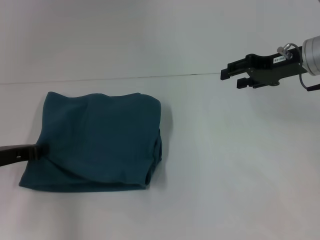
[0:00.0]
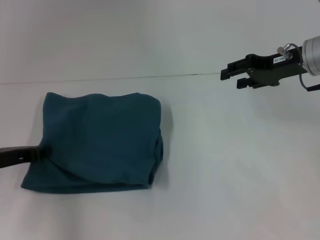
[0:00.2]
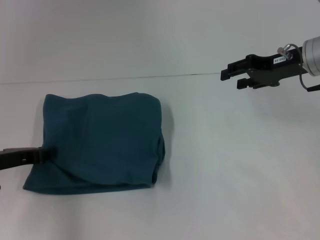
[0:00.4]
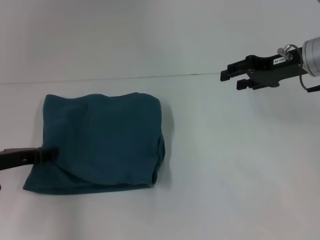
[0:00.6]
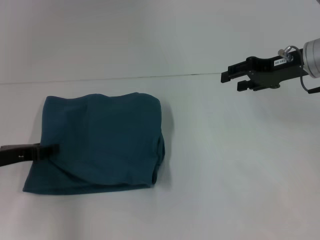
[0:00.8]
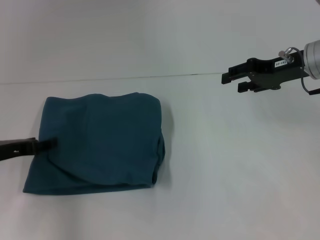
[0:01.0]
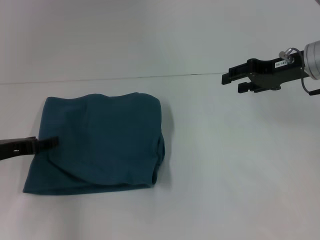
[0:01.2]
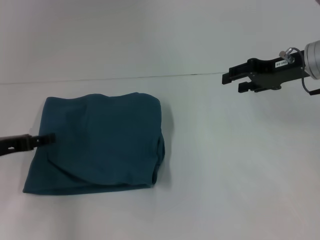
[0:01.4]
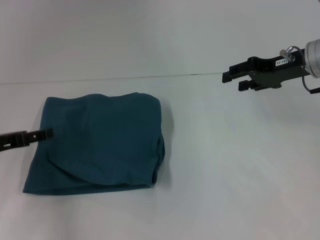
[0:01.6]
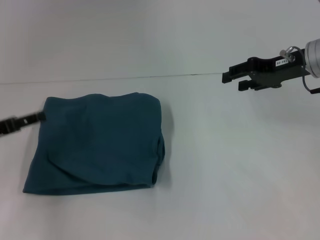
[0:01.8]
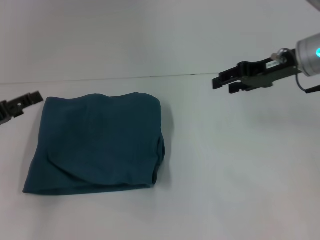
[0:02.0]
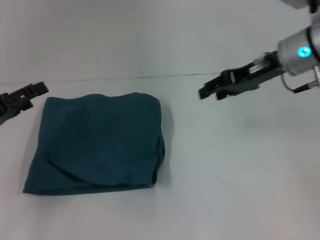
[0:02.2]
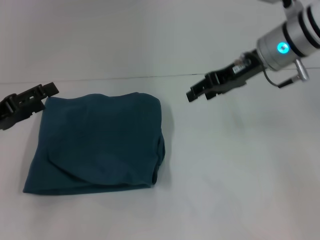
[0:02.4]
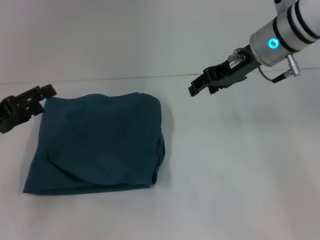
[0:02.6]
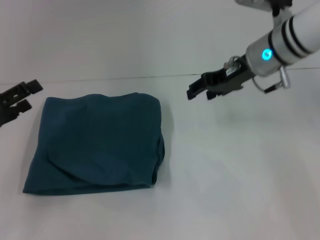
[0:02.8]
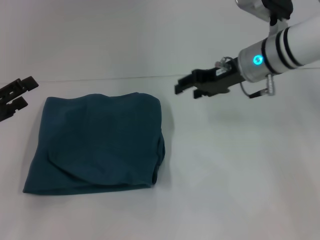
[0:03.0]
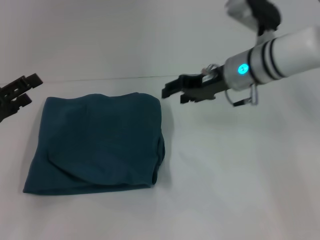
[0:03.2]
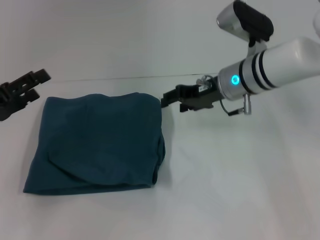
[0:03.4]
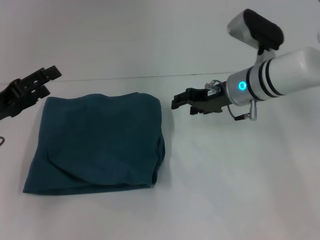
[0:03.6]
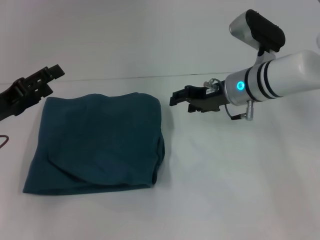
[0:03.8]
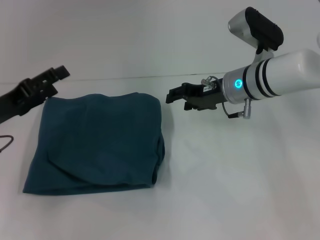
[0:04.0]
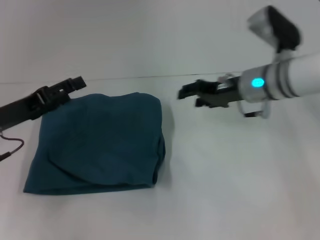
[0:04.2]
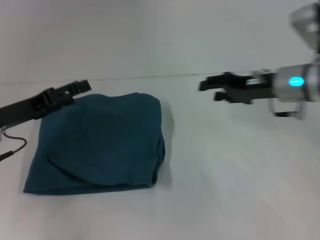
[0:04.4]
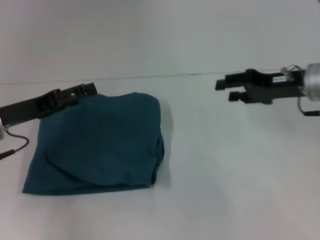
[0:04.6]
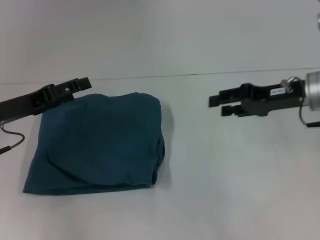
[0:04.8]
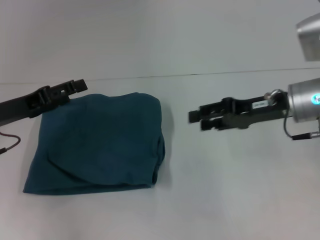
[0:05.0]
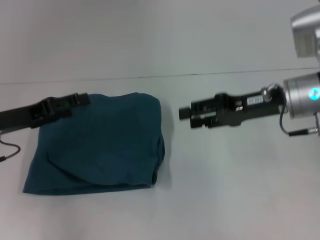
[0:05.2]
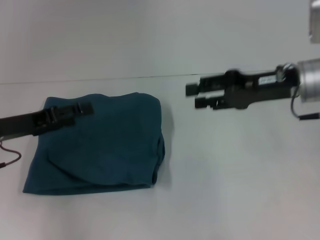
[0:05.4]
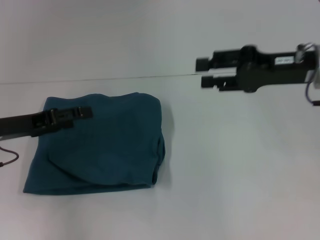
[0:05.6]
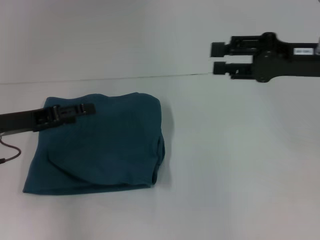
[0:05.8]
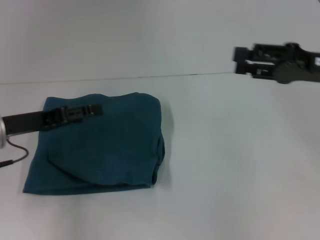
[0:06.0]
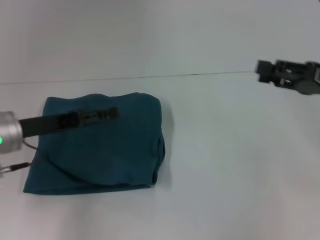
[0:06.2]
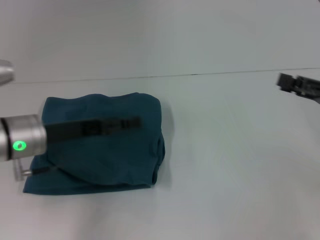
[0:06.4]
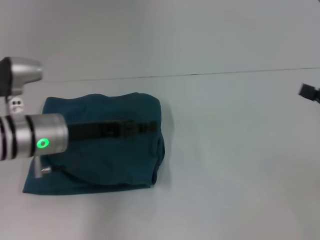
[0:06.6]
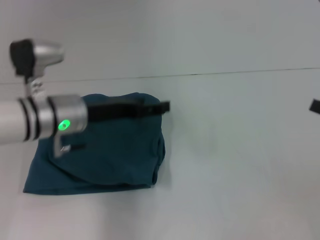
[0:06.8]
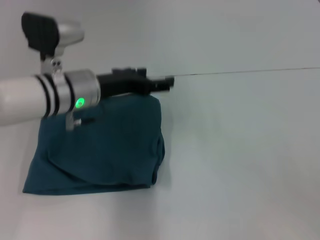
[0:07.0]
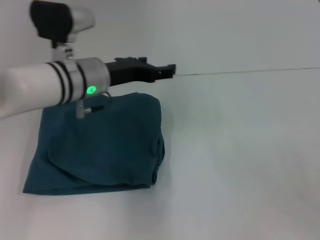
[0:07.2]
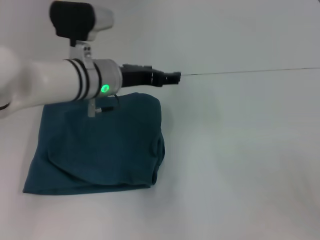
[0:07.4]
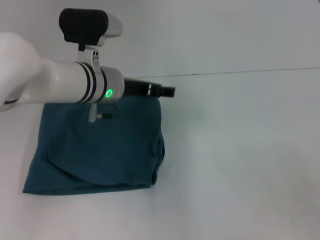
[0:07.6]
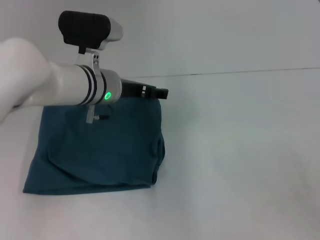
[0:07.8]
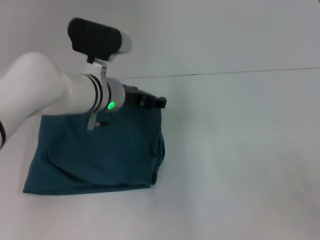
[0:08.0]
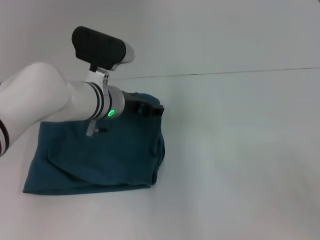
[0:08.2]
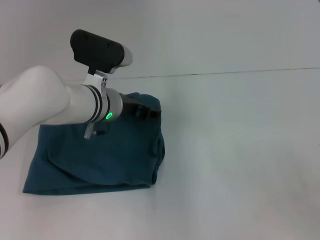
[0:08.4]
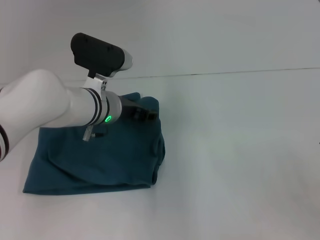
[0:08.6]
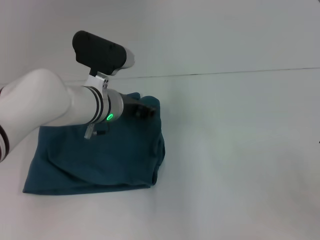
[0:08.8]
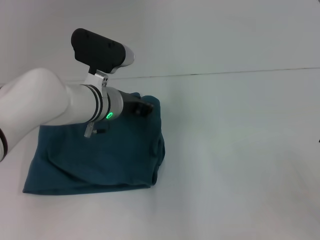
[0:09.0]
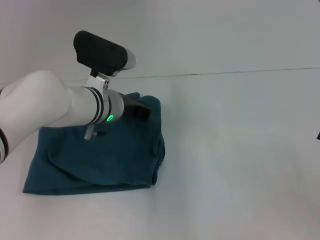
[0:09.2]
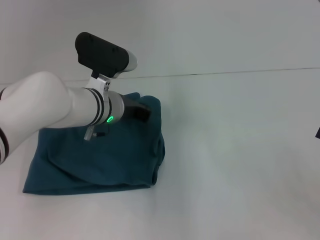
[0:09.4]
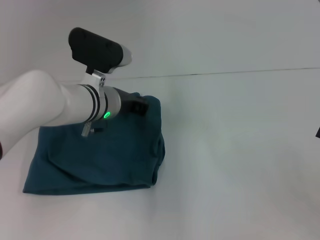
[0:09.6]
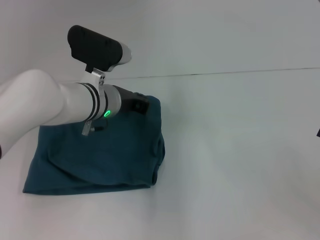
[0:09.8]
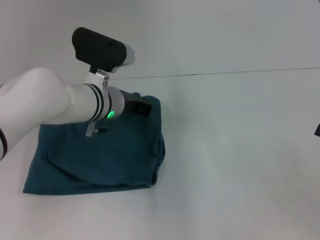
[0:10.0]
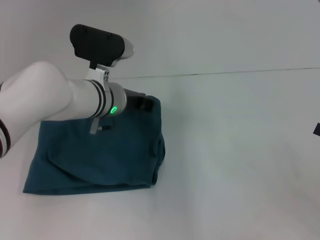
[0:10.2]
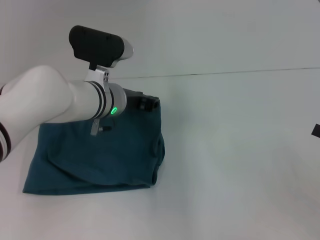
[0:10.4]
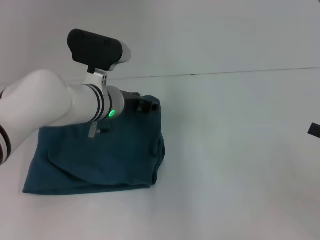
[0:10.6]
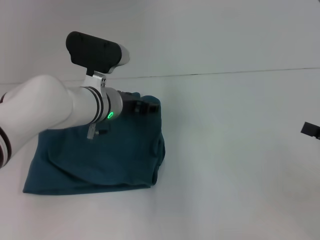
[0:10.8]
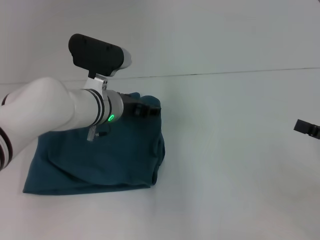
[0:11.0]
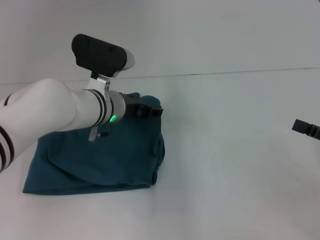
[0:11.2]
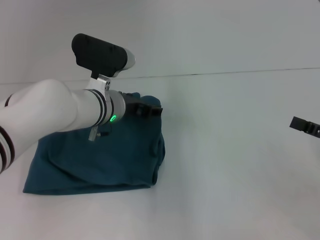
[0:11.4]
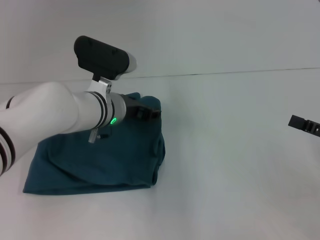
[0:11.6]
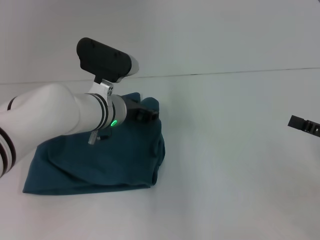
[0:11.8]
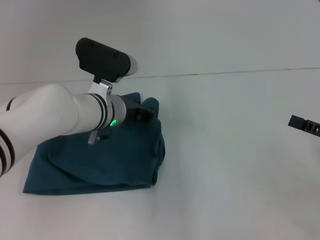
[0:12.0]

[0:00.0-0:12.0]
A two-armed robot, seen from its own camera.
0:00.0 to 0:01.6: The left gripper opens up.
0:01.6 to 0:03.0: The right gripper shifts about 10 cm to the left.
0:03.0 to 0:04.4: The two grippers go roughly 5 cm to the right.
0:04.4 to 0:06.0: The right gripper shifts about 10 cm to the right and backward.
0:06.0 to 0:07.6: The left gripper goes some 20 cm to the right and forward. The right gripper travels backward, to the right and downward by approximately 20 cm.
0:07.6 to 0:09.0: The left gripper closes up.
0:09.0 to 0:10.4: The grippers move only a little.
0:10.4 to 0:12.0: The left gripper opens its fingers.

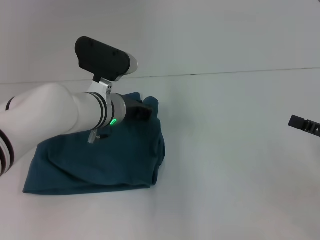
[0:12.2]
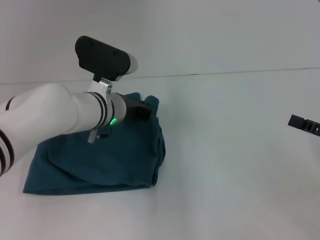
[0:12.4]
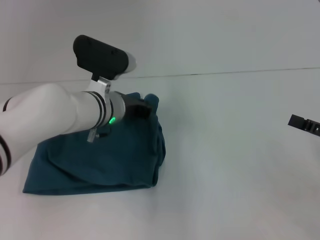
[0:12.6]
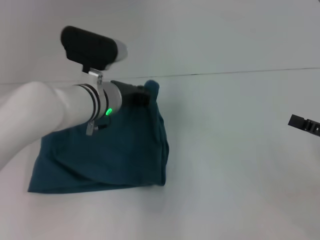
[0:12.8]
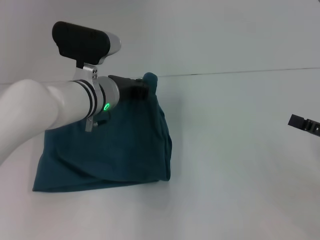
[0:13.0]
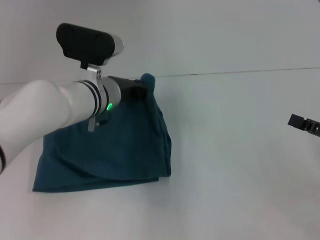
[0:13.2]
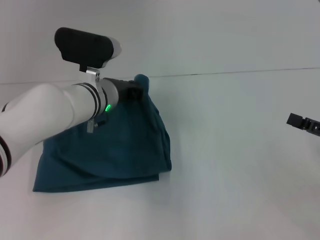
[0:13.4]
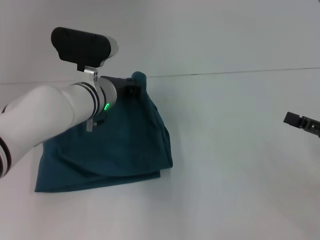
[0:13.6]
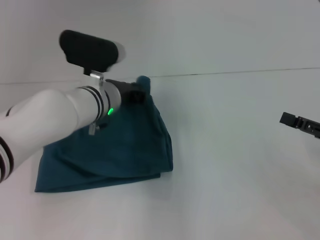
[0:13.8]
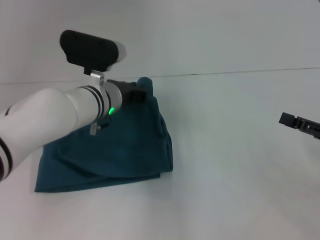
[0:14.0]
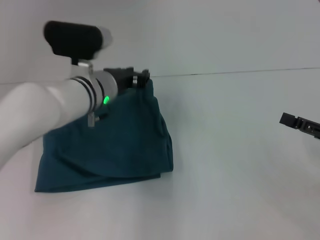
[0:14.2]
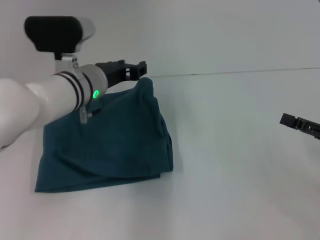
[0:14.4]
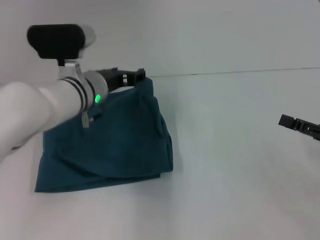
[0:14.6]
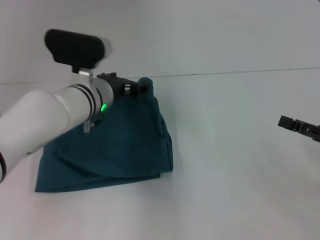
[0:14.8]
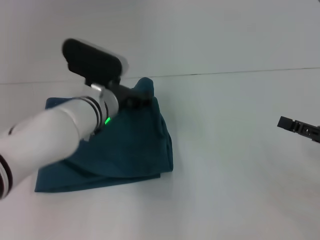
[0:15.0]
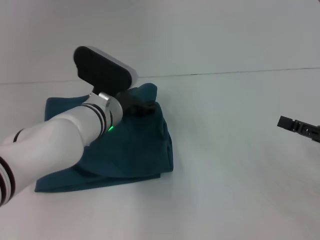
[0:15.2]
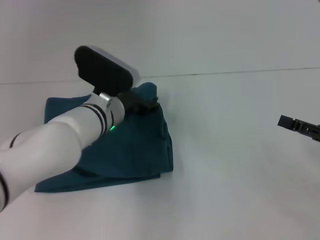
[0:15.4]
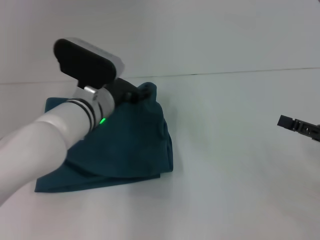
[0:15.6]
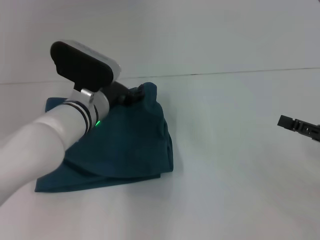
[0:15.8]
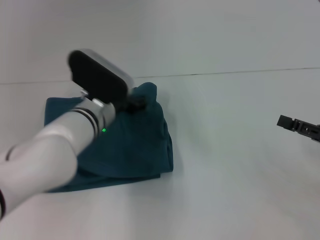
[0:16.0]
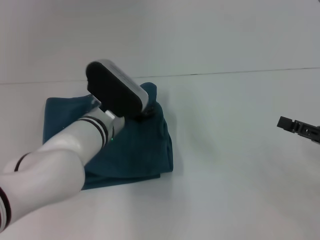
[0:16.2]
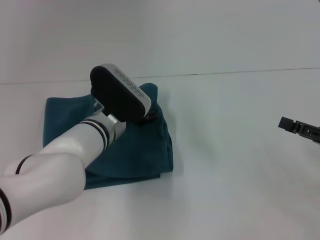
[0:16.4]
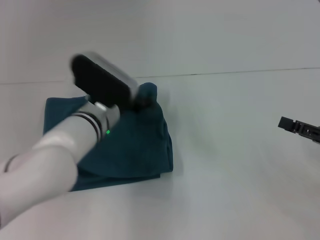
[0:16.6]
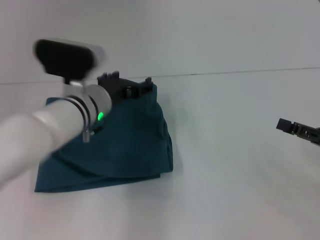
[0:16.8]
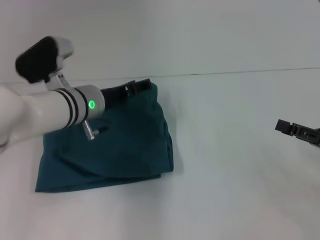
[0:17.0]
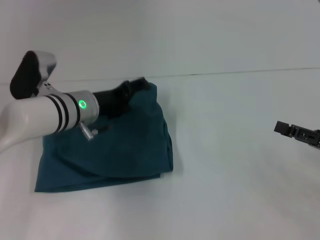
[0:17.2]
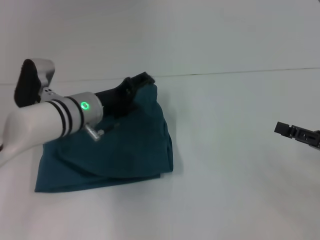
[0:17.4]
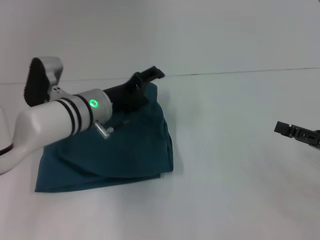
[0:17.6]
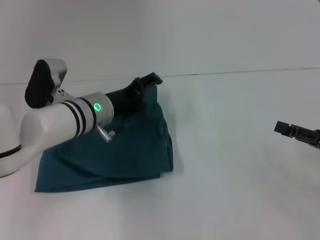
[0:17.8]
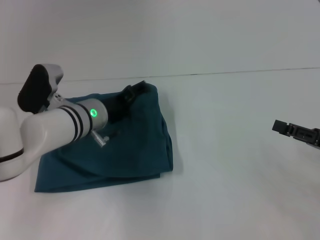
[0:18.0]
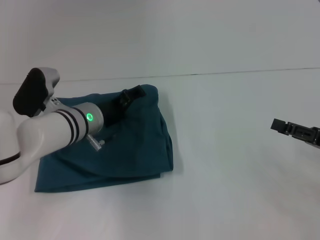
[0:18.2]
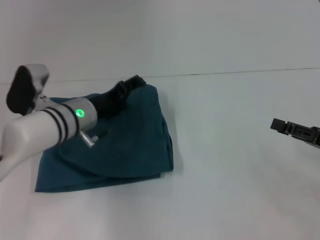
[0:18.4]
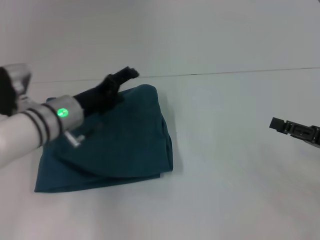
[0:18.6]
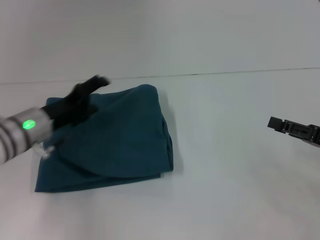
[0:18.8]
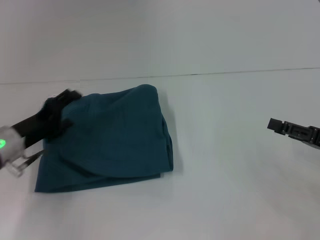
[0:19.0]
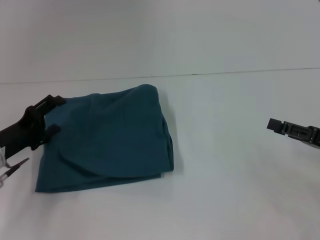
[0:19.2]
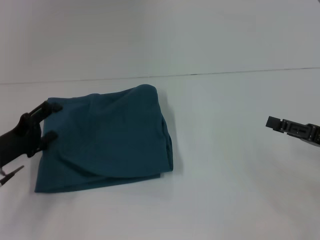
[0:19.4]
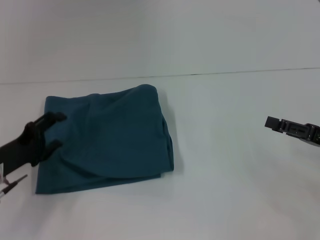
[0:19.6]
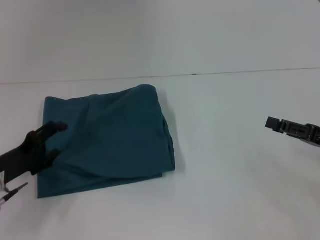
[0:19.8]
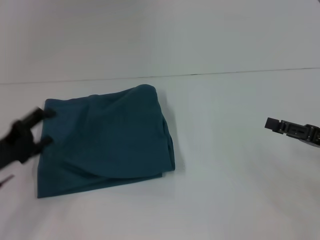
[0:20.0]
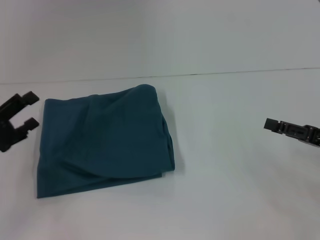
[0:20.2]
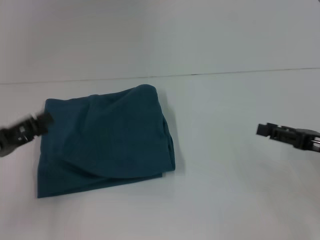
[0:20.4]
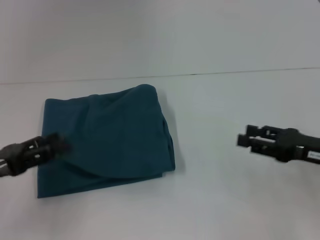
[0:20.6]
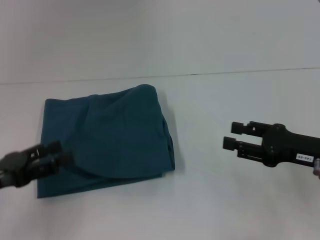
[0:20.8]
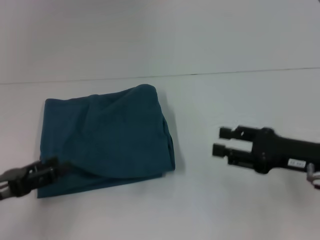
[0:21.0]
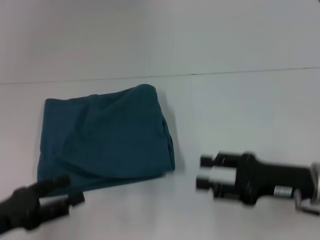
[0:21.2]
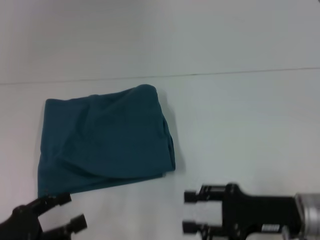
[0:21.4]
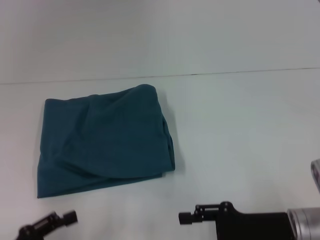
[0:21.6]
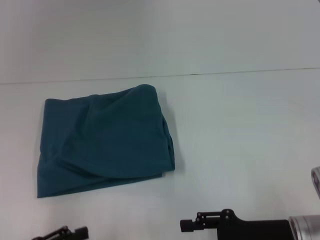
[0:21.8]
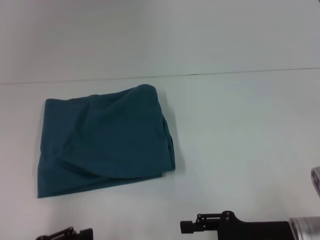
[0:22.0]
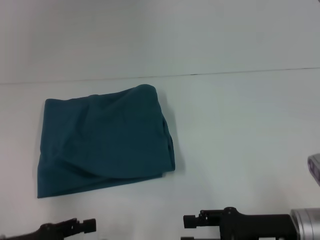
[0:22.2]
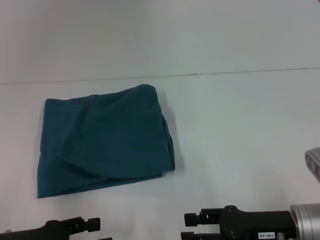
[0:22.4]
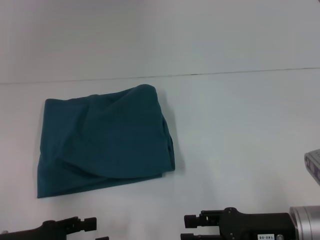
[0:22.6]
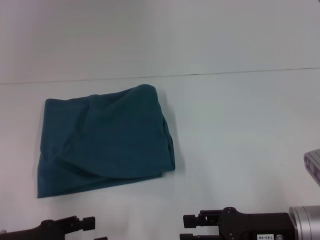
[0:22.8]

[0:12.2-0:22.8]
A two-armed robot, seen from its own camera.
0:12.2 to 0:13.8: There are only small adjustments of the grippers.
0:13.8 to 0:15.2: The left gripper opens.
0:15.2 to 0:16.8: The grippers stay close to where they were, moving slightly.
0:18.2 to 0:19.8: The left gripper travels to the left and backward by roughly 20 cm.
0:19.8 to 0:21.2: The left gripper travels backward by roughly 10 cm; the right gripper is displaced to the left by roughly 10 cm.
0:21.2 to 0:22.8: The right gripper moves approximately 5 cm.
